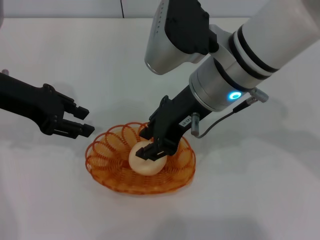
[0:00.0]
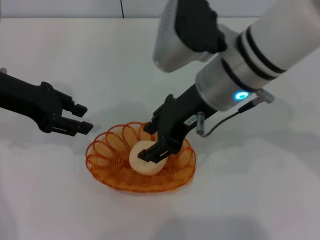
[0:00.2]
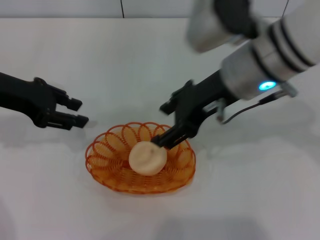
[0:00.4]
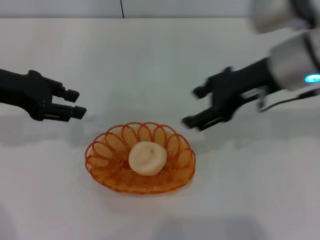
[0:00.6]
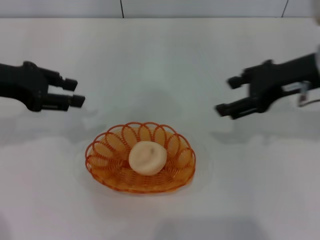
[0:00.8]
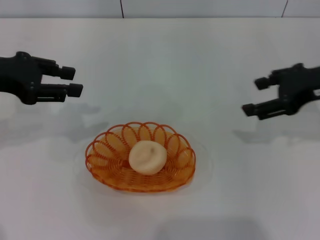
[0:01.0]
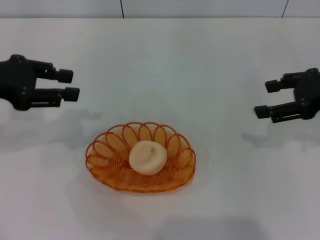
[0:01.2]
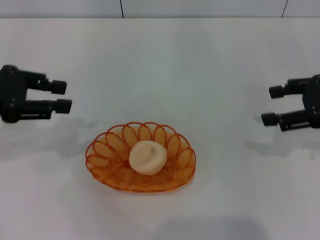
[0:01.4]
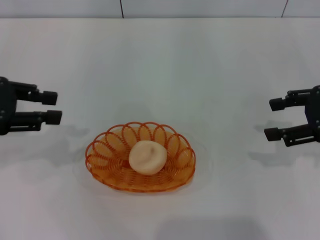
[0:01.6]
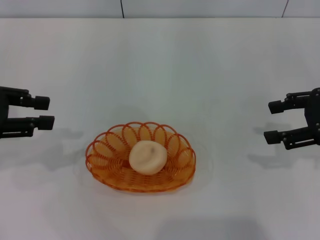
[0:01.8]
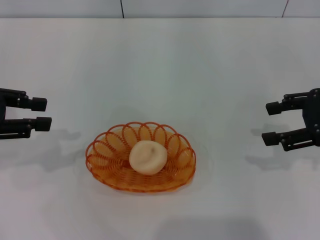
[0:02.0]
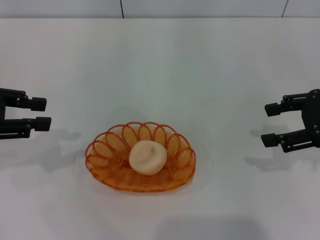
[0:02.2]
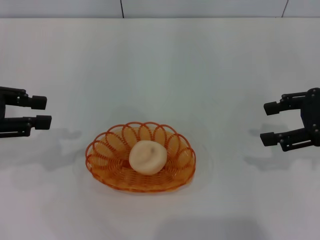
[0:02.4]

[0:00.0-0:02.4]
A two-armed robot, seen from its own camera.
0:00.0 to 0:01.2: The left gripper changes place by approximately 5 cm; the right gripper heads to the right, covering about 25 cm, and opens its fingers.
0:01.2 to 0:02.4: The grippers stay close to where they were, moving slightly.
